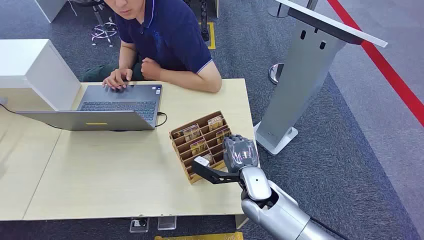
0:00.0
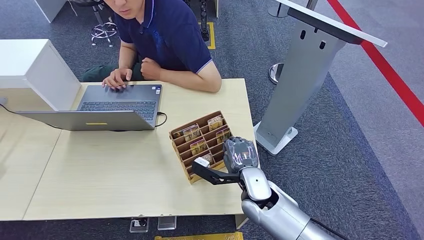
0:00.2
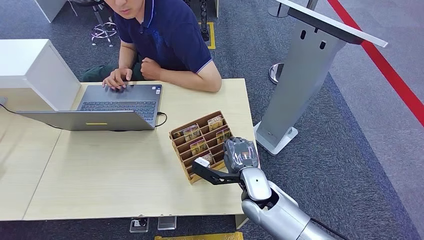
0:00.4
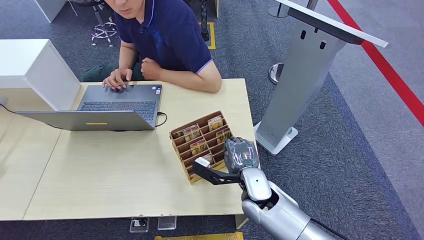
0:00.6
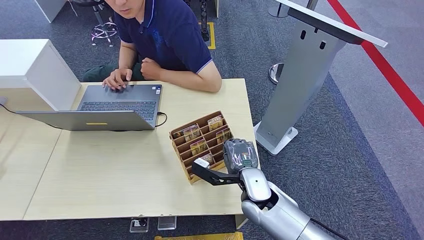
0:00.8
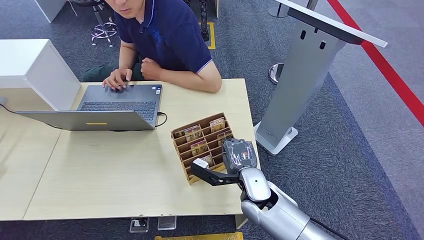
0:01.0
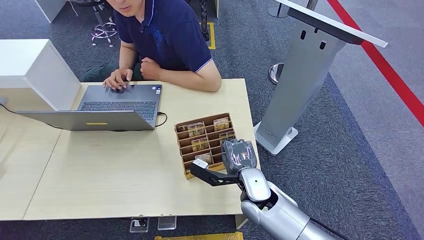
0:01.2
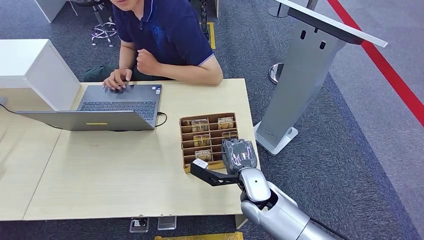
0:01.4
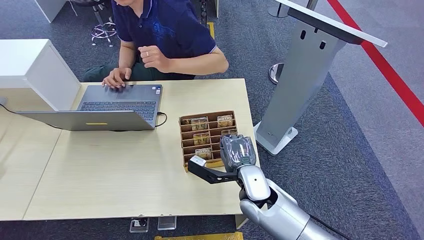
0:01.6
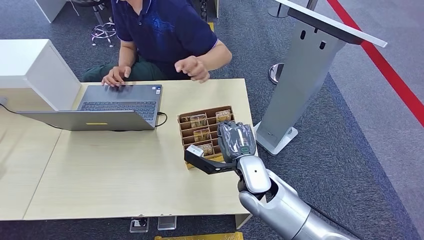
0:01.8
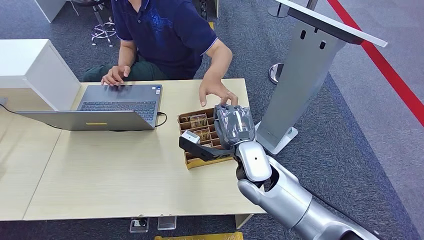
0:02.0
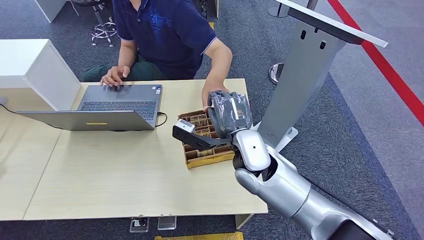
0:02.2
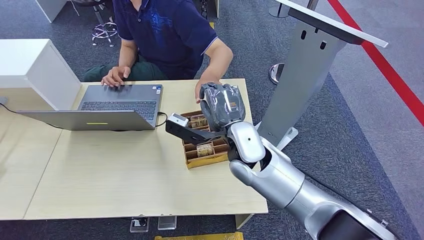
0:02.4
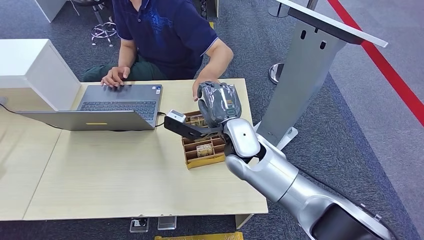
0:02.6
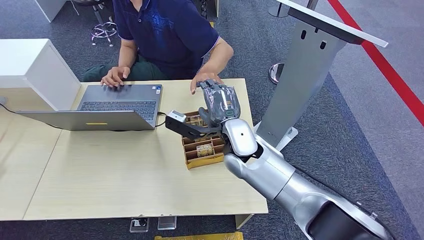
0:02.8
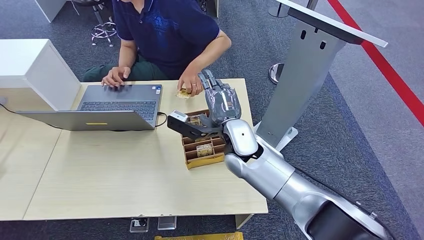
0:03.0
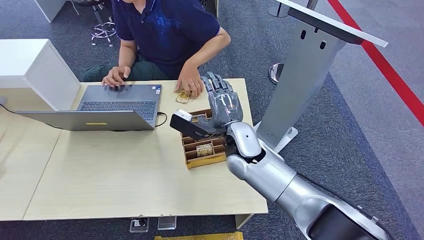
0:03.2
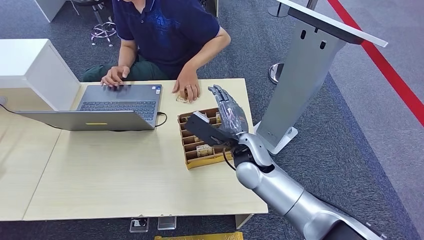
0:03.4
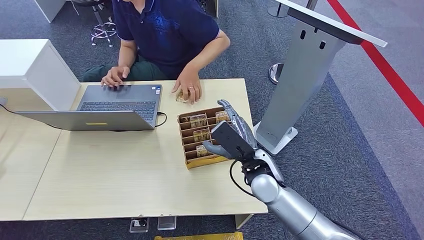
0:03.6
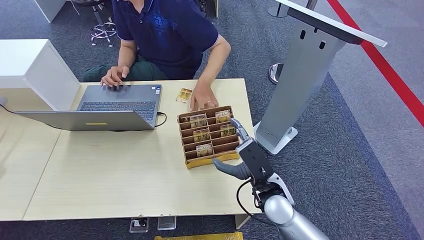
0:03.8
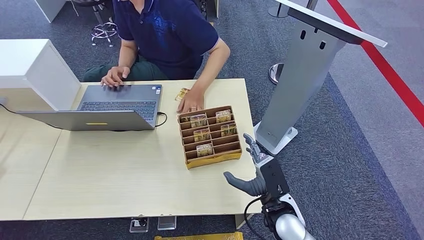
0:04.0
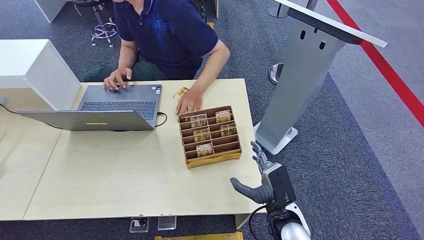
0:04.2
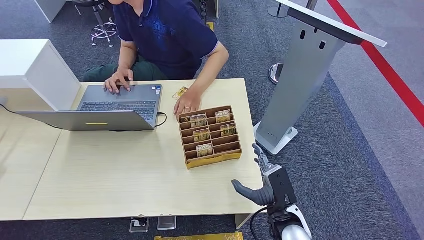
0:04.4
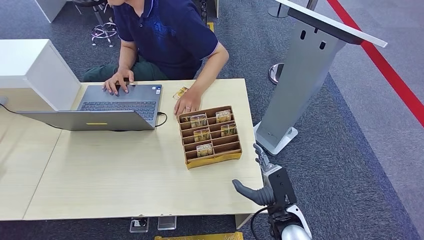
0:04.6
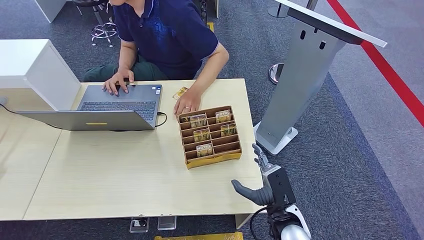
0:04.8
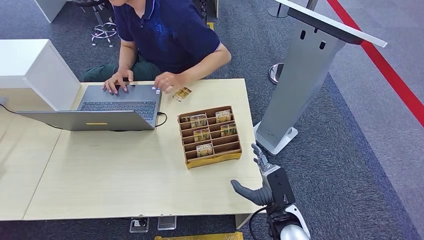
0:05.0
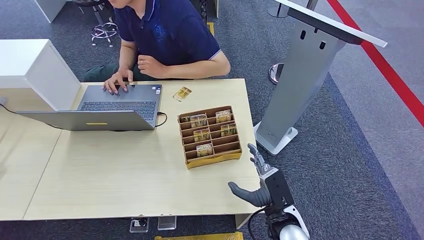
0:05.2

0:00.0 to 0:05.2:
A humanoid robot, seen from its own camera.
Step, 0:00.0 to 0:01.6: Pick up the key card from the card box.
Step, 0:01.8 to 0:05.2: Hand the key card to the target.
0:03.4 to 0:05.2: The right hand shifts about 20 cm backward, downward and to the right.

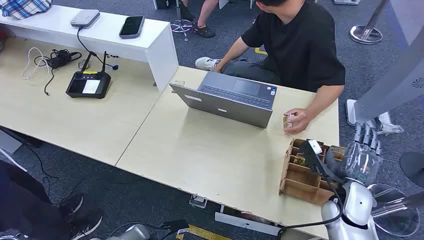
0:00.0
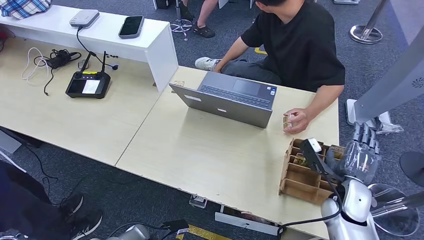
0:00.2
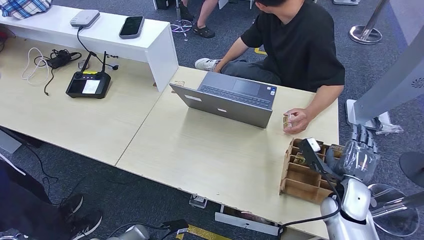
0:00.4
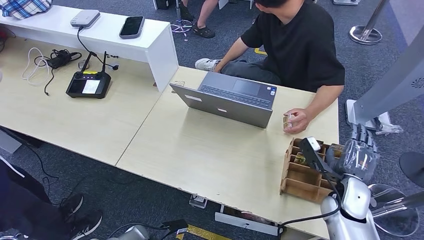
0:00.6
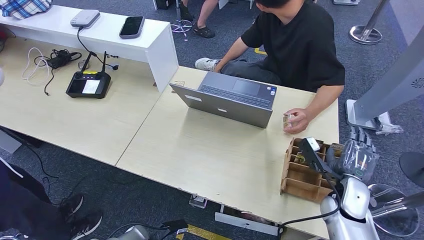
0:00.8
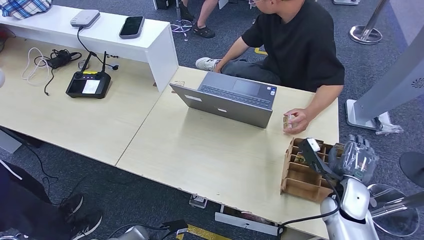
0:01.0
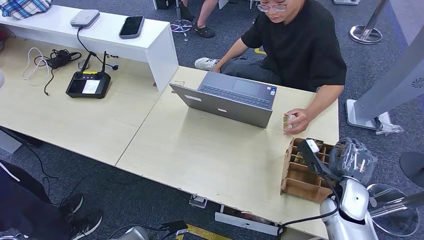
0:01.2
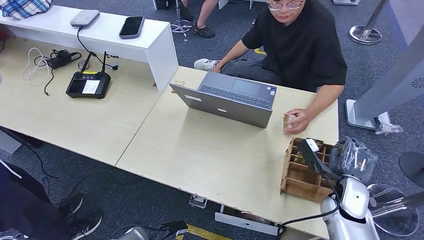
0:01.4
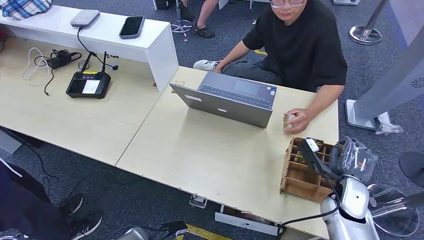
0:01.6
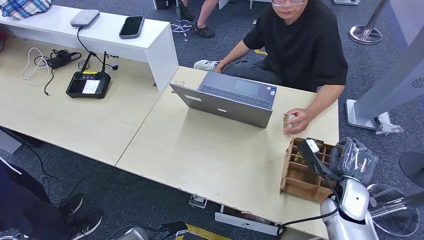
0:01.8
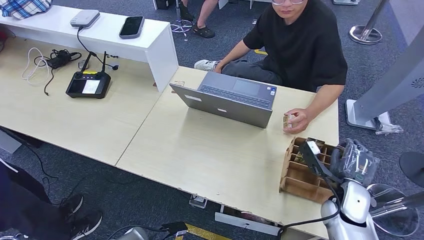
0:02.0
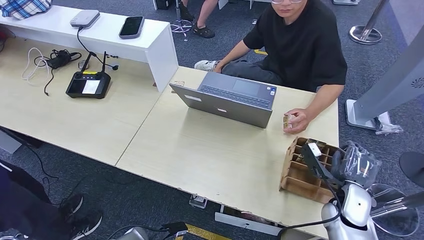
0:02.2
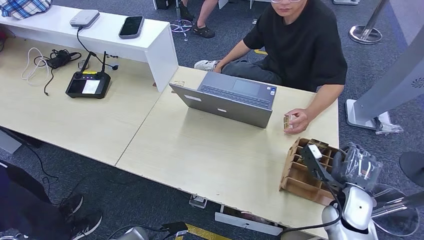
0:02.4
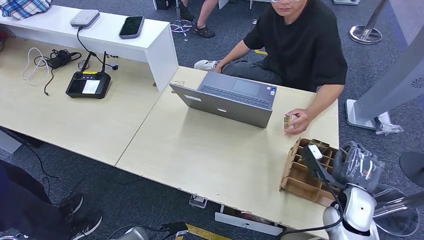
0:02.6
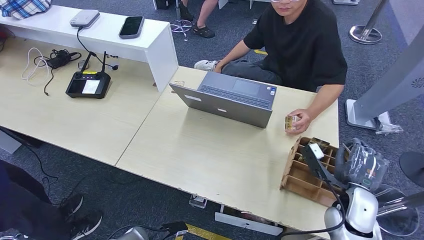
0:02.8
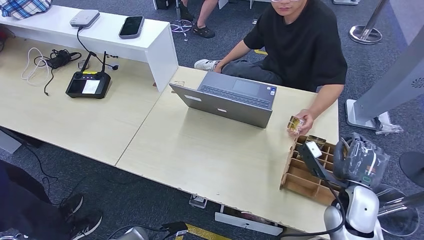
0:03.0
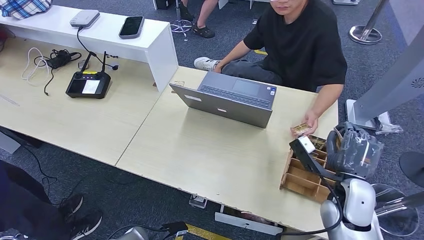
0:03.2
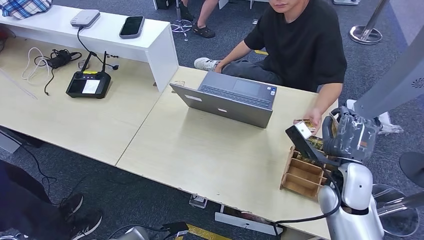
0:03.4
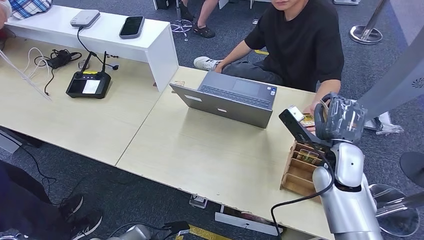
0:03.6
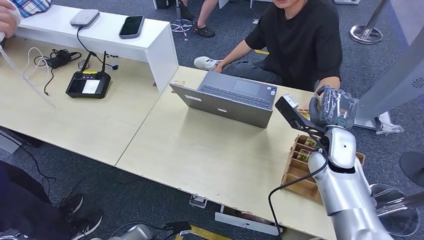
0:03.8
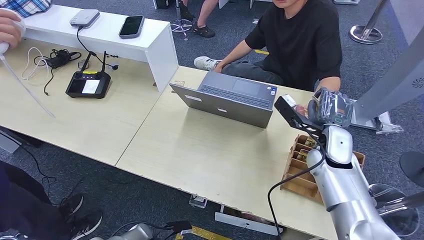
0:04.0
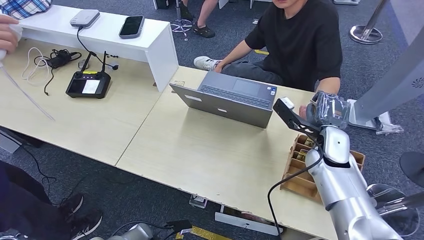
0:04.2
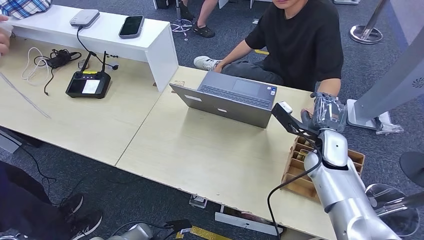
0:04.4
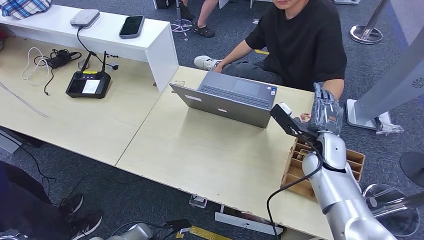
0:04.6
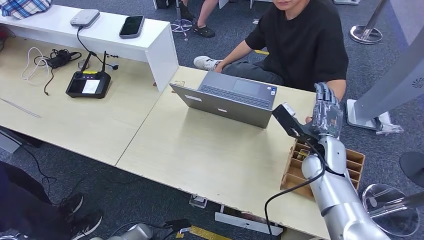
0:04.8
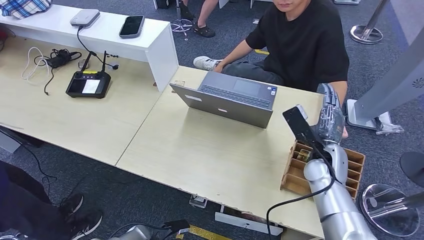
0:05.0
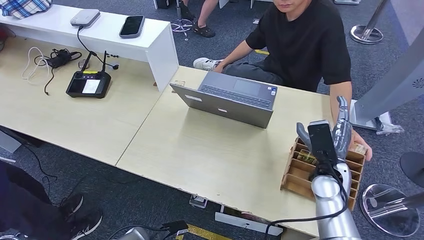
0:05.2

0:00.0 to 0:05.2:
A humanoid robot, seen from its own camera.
Step, 0:00.0 to 0:03.2: Pick up the key card from the card box.
Step, 0:03.4 to 0:05.0: Hand the key card to the target.
0:01.8 to 0:03.4: The right hand heads upward, covering some 10 cm.
